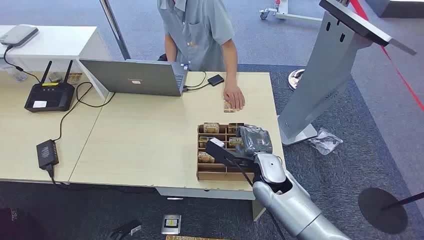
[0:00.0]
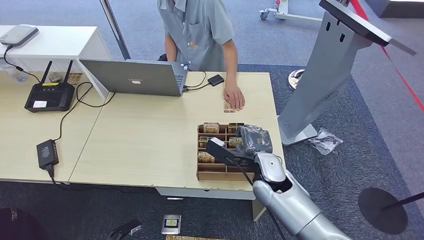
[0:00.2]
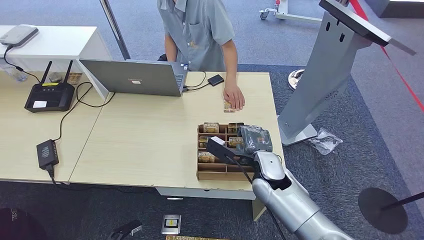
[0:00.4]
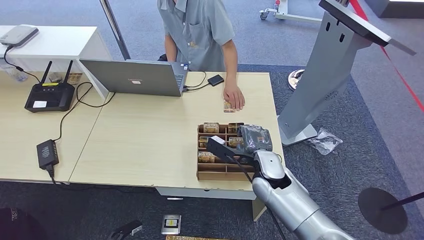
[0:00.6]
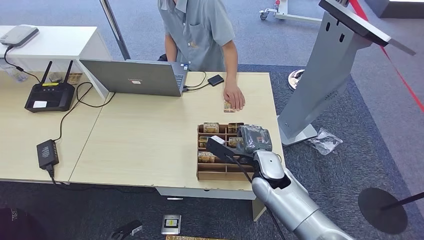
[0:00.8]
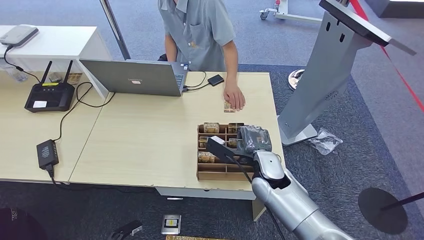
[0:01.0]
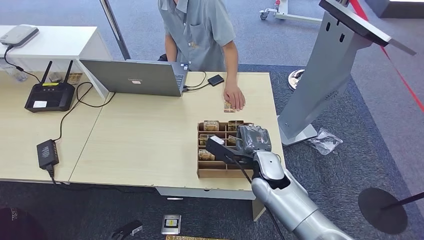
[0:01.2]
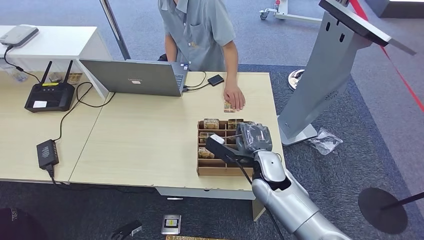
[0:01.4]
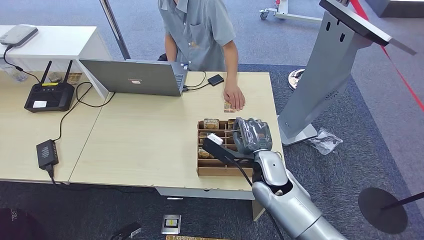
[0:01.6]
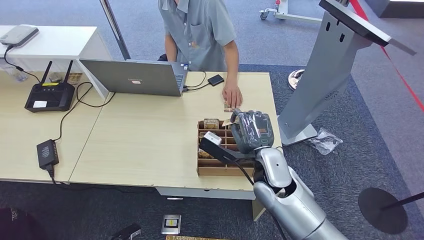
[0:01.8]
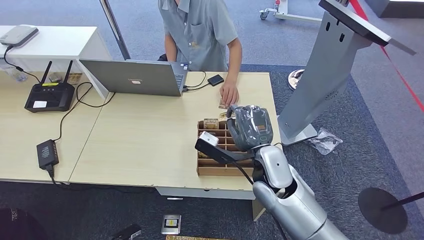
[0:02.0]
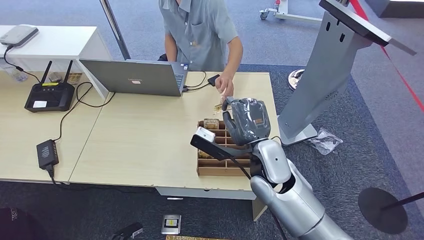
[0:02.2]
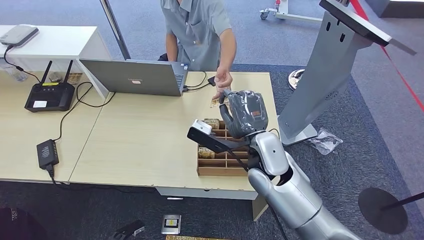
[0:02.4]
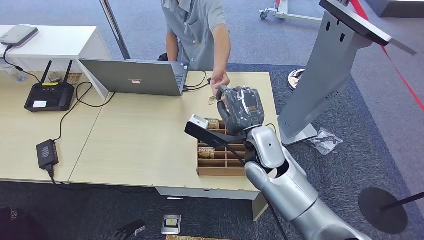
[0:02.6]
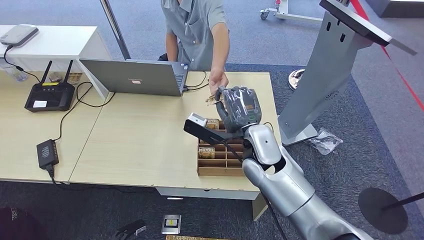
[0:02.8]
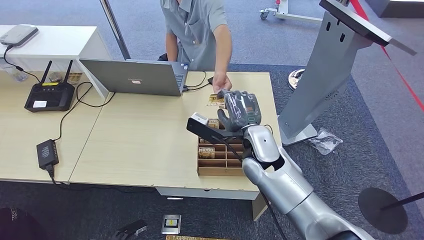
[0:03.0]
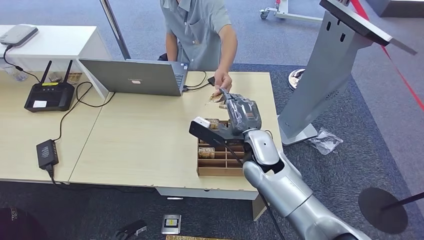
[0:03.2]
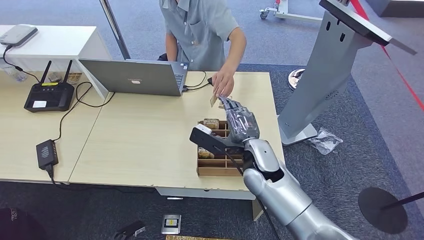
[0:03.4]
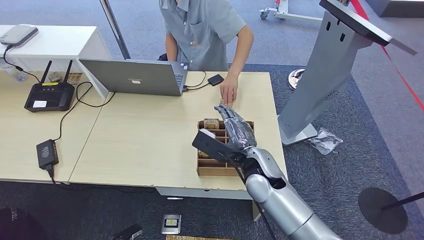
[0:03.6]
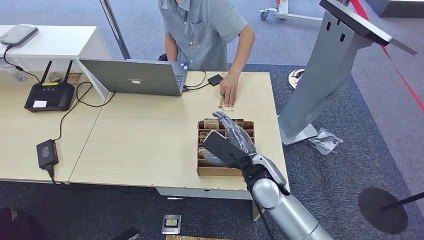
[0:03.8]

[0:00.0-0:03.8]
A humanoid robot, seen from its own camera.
Step, 0:00.0 to 0:01.6: Pick up the key card from the card box.
Step, 0:01.8 to 0:03.8: Hand the key card to the target.
0:01.2 to 0:02.6: The right hand is displaced upward by roughly 10 cm.
0:02.6 to 0:03.8: The right hand travels downward by some 5 cm.
